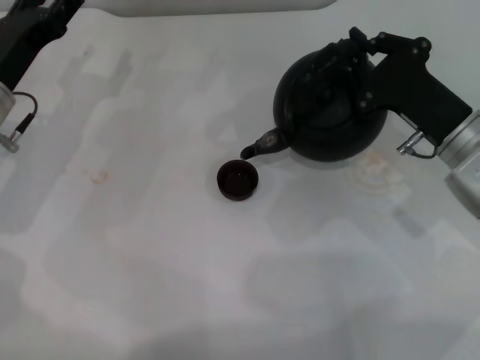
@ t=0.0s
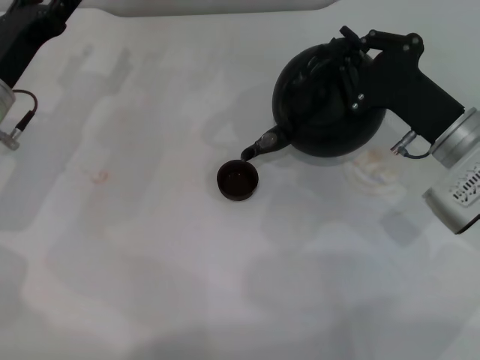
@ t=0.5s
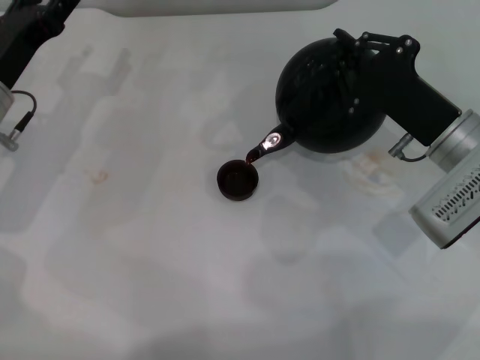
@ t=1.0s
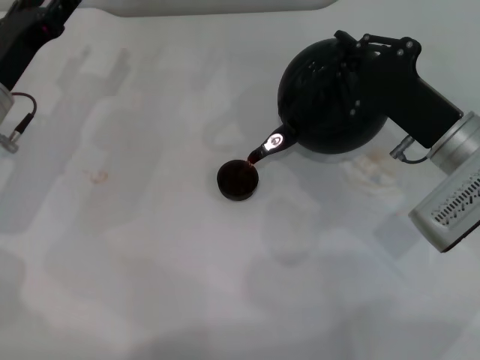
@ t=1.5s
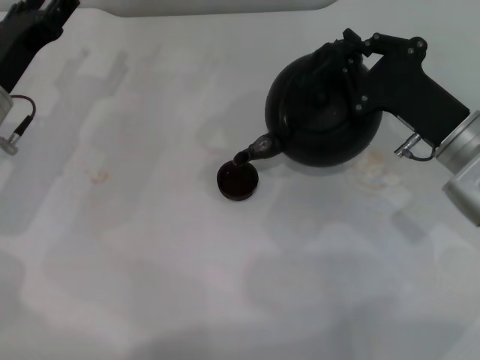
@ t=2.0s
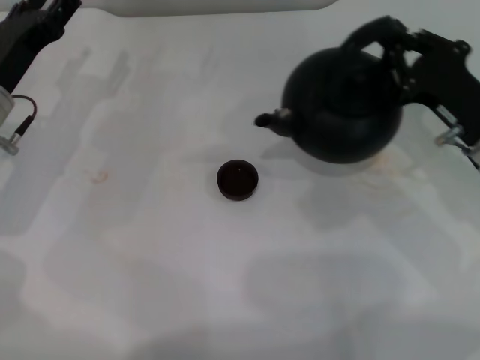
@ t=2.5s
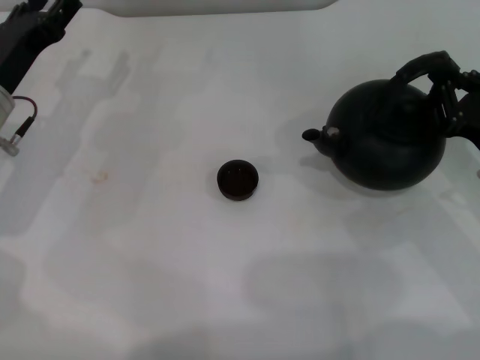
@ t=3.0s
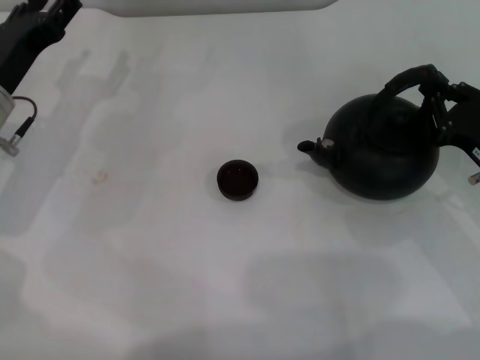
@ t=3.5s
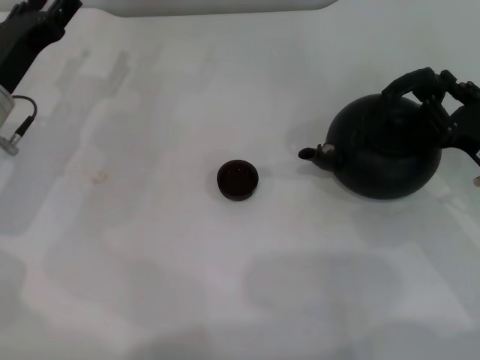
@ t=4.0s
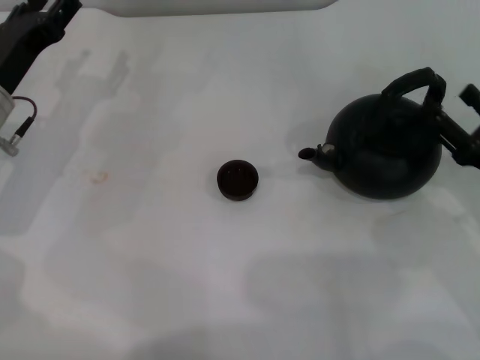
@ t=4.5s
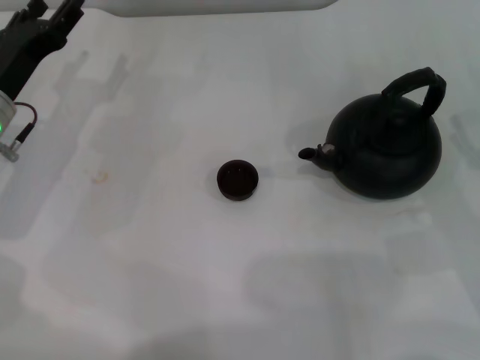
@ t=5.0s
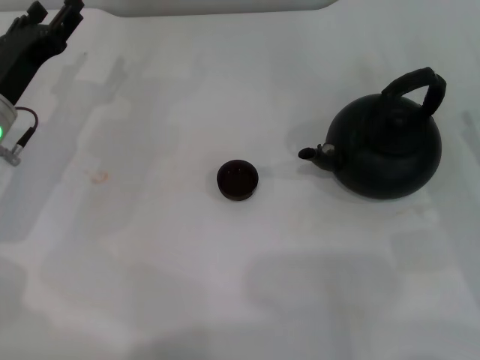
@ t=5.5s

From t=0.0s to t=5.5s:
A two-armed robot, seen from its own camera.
Task of the whole recording: Grasp the handle of the teapot with one hand and pour tea into the teacup.
Step, from t=0.0s to t=2.0s: Pour tea into the teacup with the right gripper.
Step, from t=2.5s to t=4.5s: Put down the teapot with the right gripper.
From t=2.0s to t=3.5s: The right gripper shifts roughly 5 cm to the right.
From t=3.5s to t=5.5s: The right gripper ends up some 5 cm from where it was, and opens its fingers.
